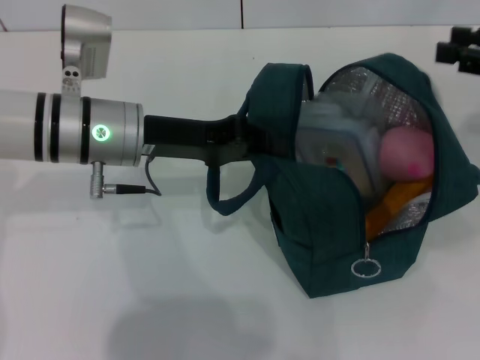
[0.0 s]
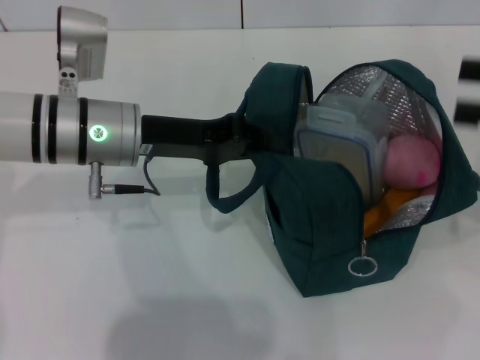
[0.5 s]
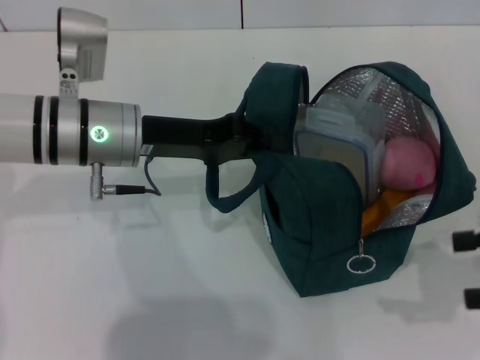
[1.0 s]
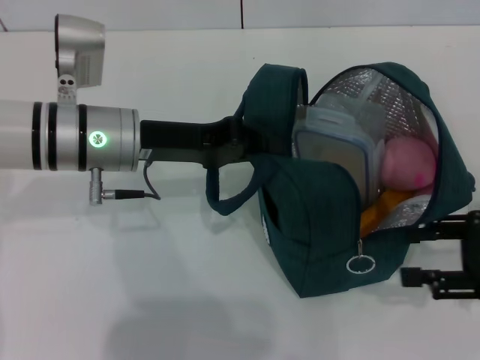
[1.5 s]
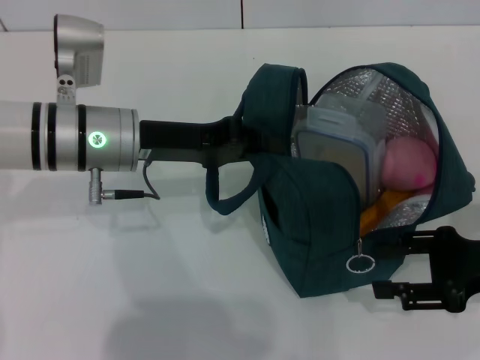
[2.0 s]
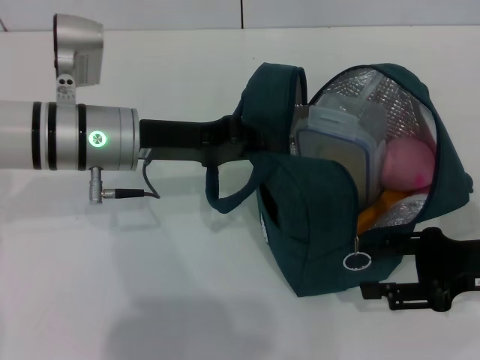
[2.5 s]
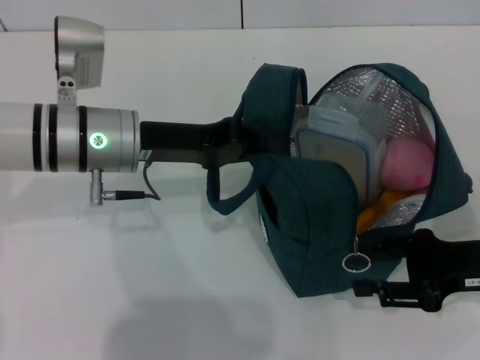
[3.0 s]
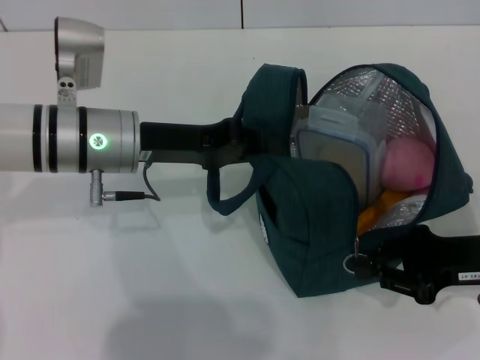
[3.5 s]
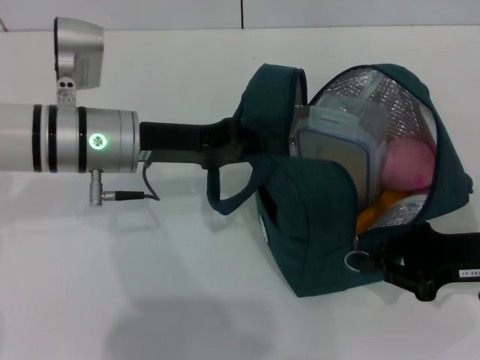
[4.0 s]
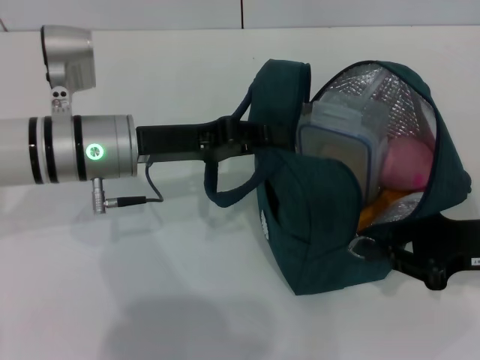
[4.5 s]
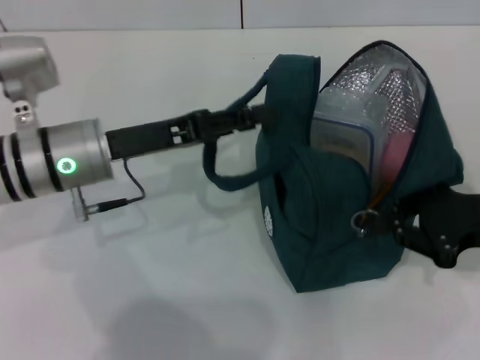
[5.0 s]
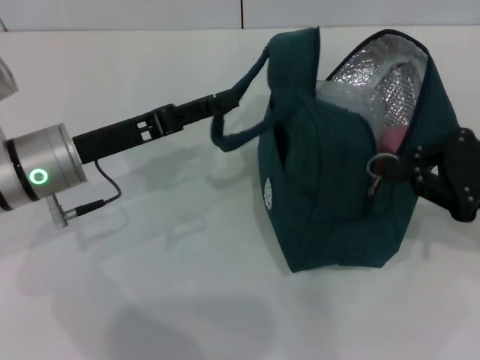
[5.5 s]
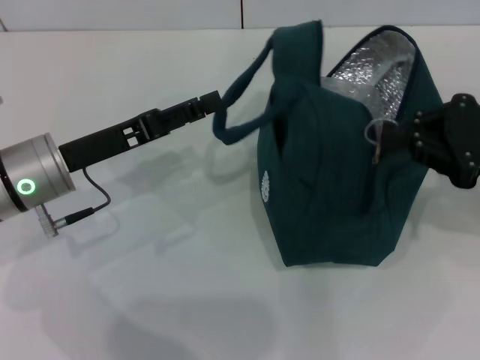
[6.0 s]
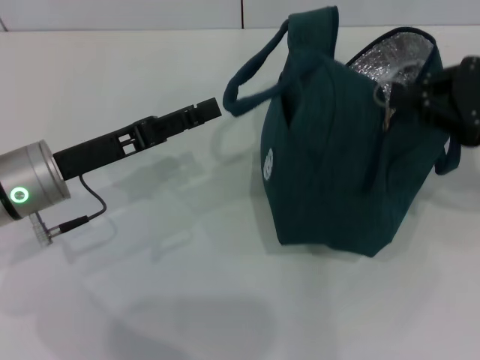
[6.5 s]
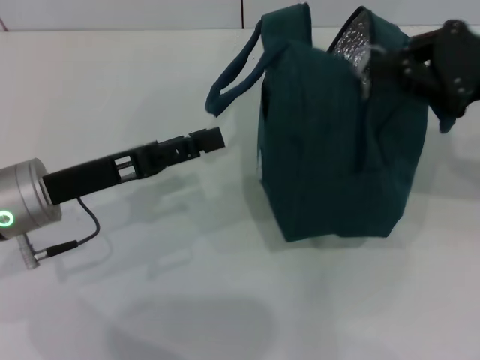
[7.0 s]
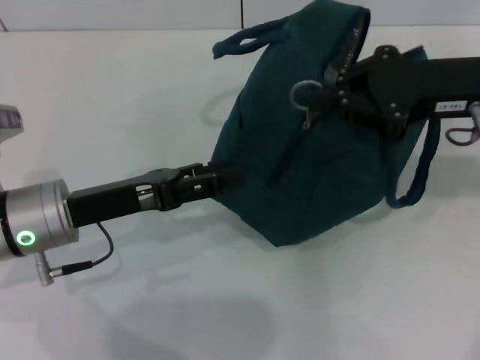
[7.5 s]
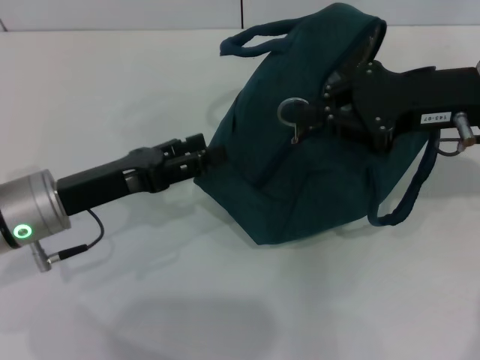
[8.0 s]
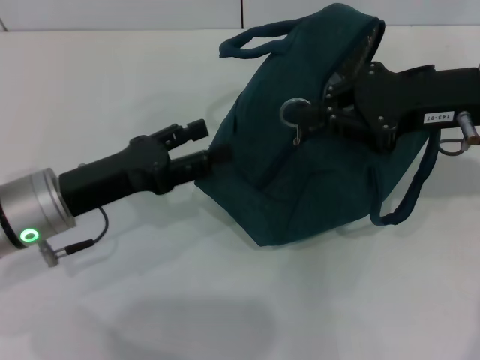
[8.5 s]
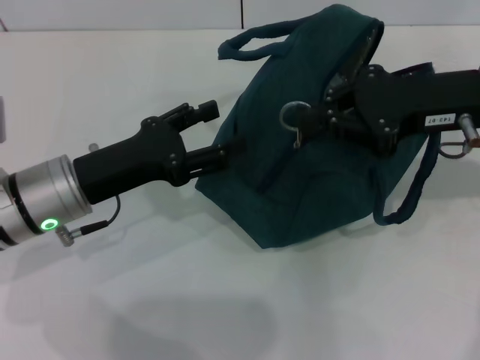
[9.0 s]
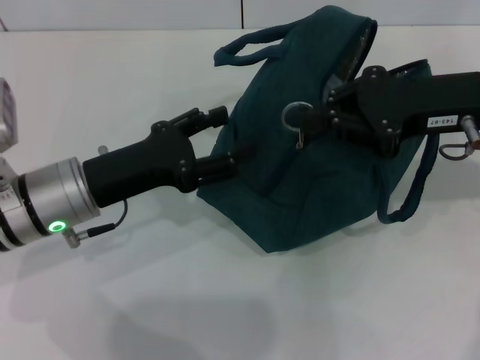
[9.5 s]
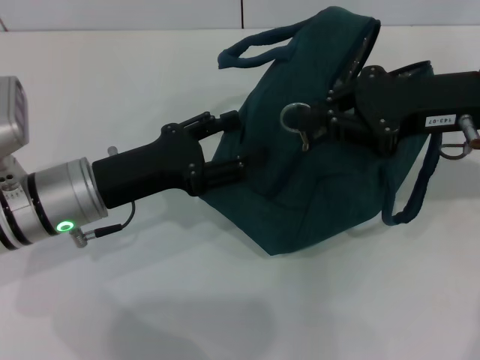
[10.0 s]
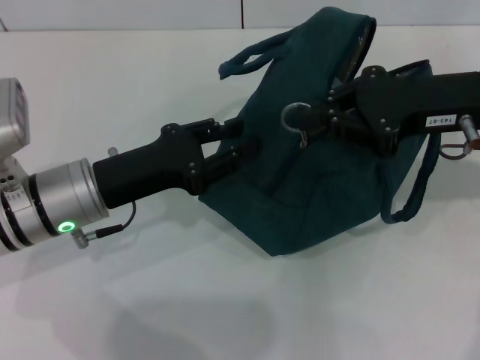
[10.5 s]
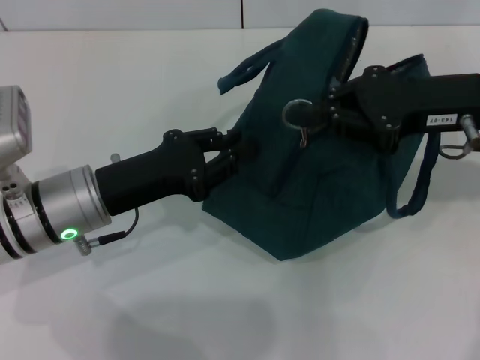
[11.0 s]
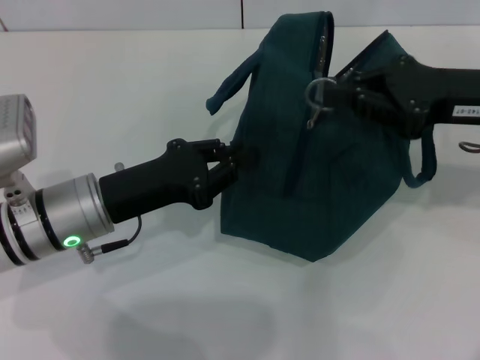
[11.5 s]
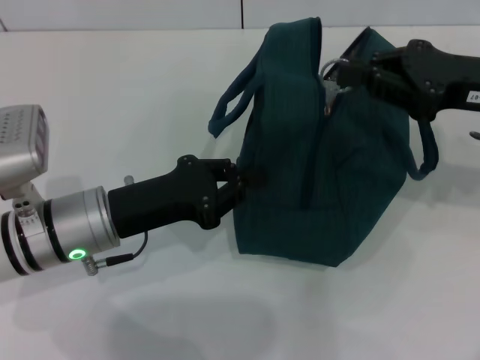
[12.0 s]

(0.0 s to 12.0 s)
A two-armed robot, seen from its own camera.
0.0 s - 2.0 s: The right gripper travels downward and backward by some 15 cm, and opens up.
2.0 s - 4.0 s: The right gripper closes its fingers.
4.0 s - 6.0 s: The right gripper heads upward, covering roughly 10 cm. Meanwhile the left gripper travels to the left by roughly 5 cm, and opens up.
6.0 s - 8.0 s: The right gripper heads to the left, covering roughly 5 cm.
10.0 s - 12.0 s: The left gripper closes.

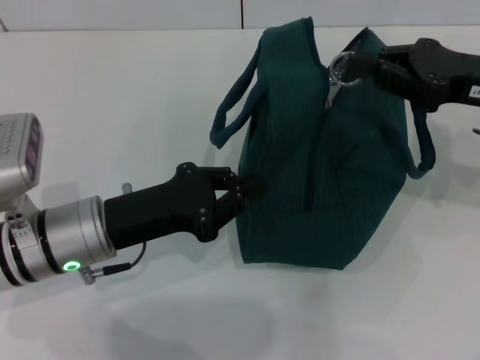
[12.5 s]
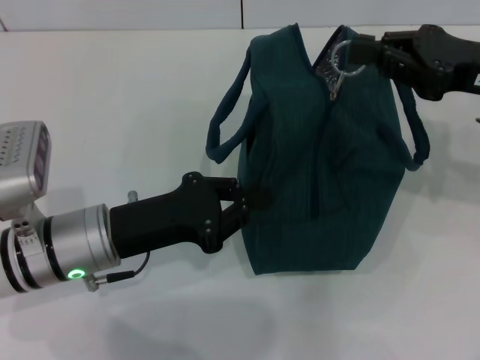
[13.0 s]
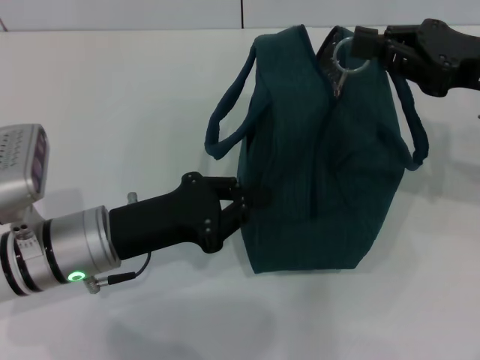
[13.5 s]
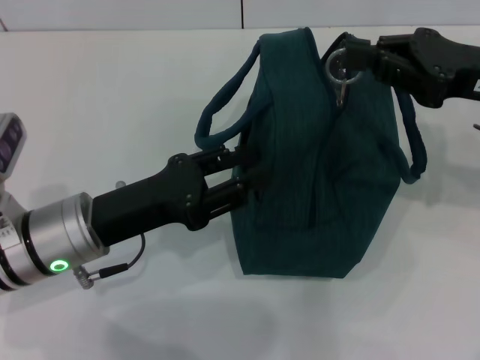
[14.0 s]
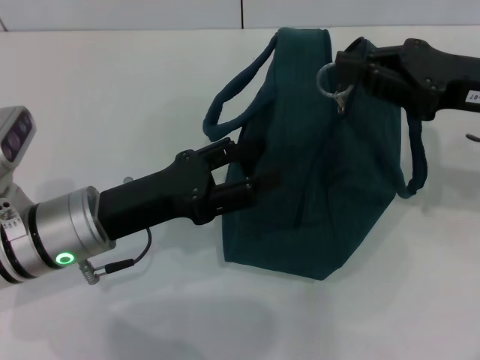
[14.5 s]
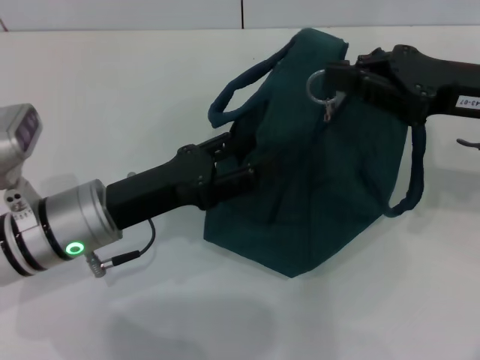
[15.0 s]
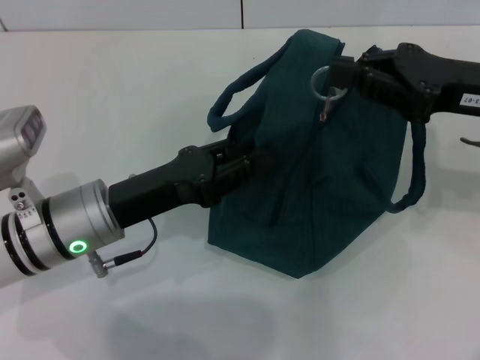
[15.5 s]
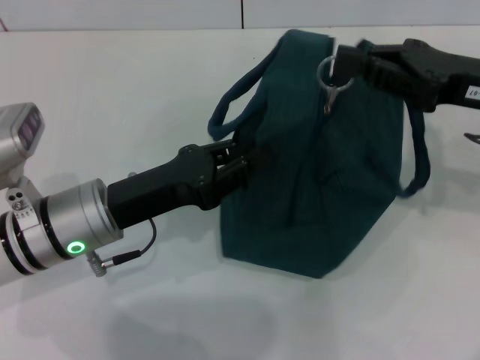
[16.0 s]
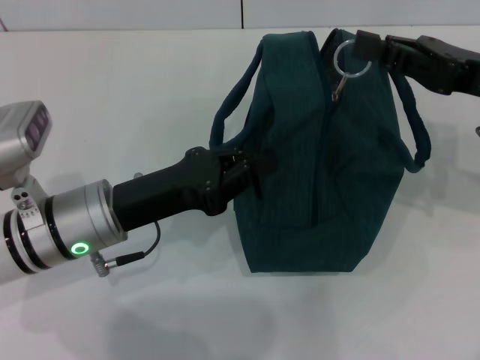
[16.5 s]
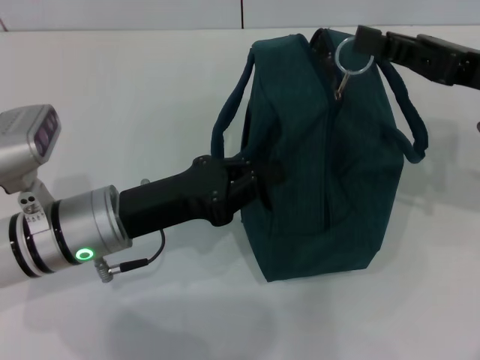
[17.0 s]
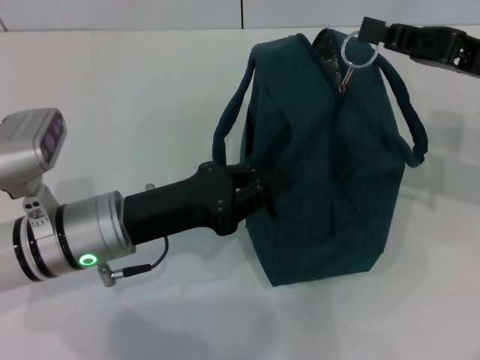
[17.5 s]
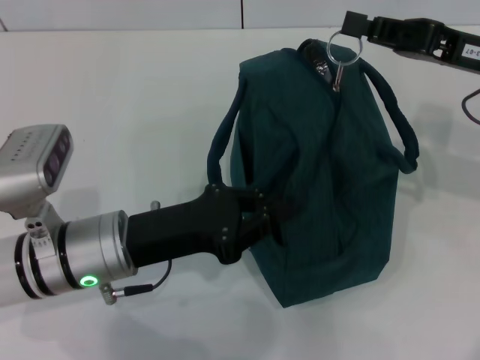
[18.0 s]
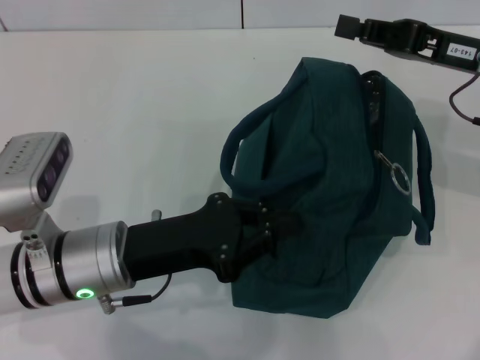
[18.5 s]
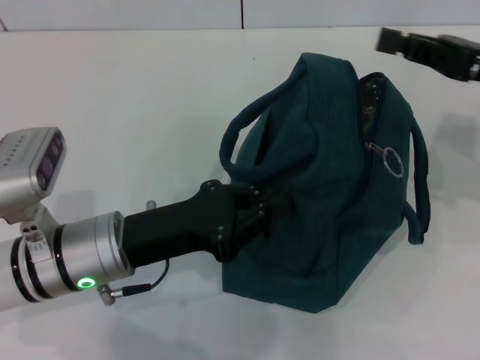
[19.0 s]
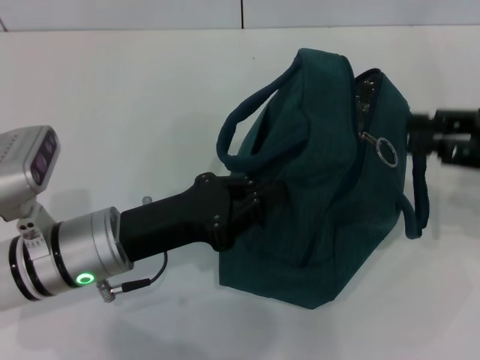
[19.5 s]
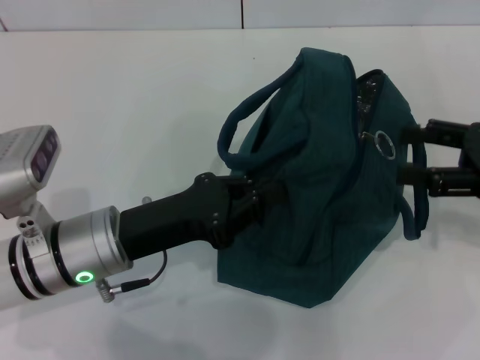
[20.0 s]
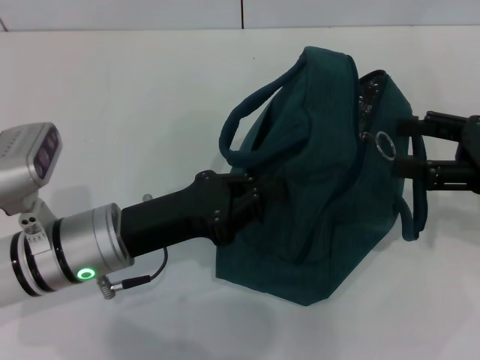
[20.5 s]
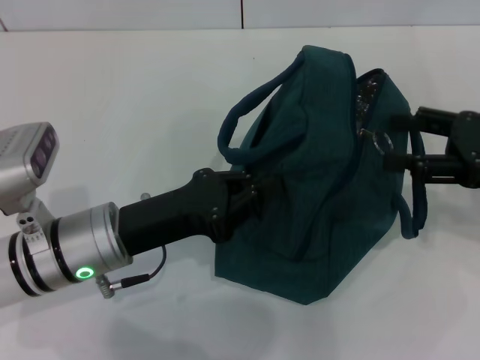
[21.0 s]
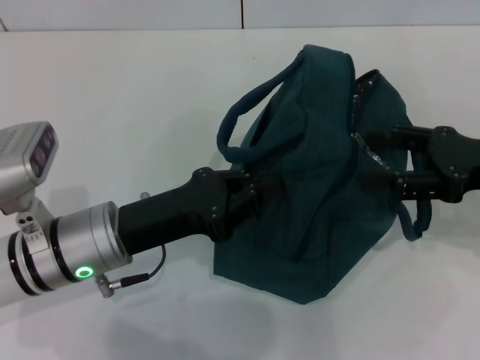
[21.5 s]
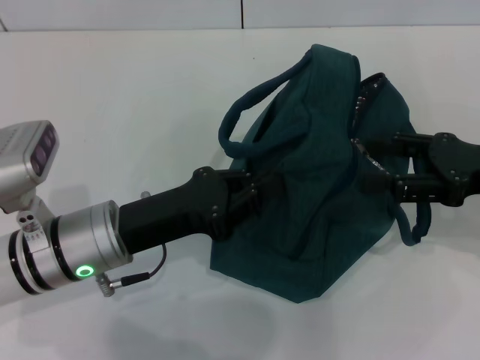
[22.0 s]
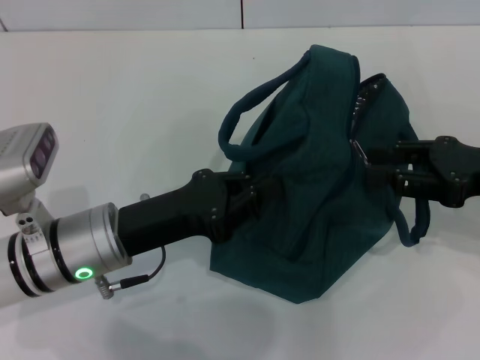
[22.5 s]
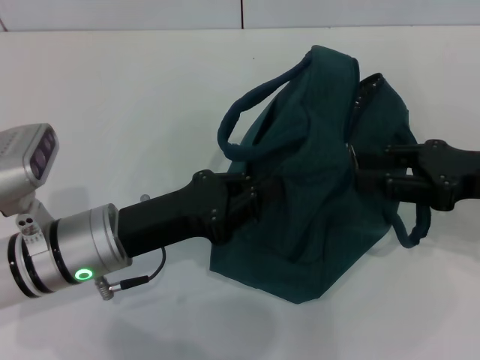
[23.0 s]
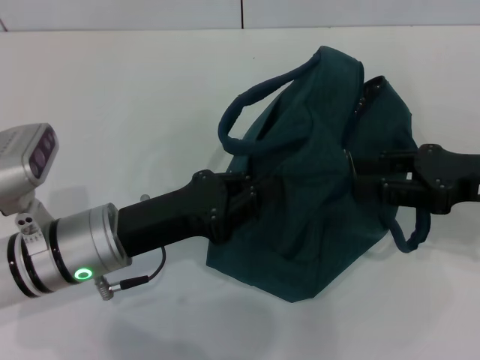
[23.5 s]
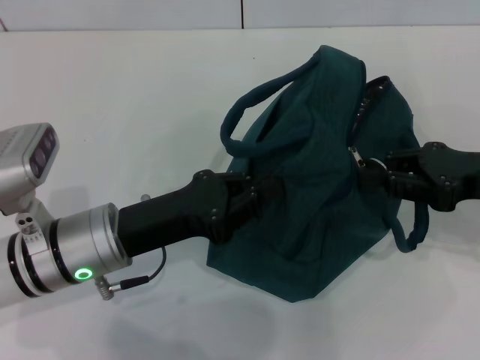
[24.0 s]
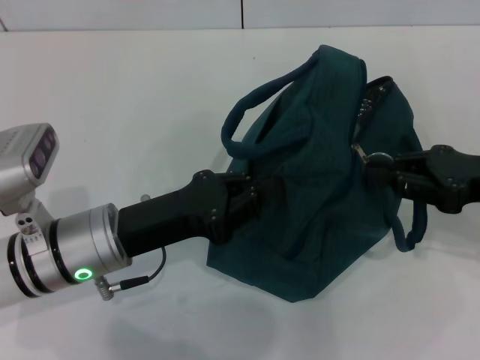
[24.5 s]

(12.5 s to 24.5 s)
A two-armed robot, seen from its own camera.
12.5 s - 14.5 s: The left gripper opens.
14.5 s - 16.5 s: The left gripper closes.
18.5 s - 20.5 s: The right gripper is displaced backward and to the right by approximately 10 cm, and opens its fingers.
20.5 s - 22.5 s: The right gripper closes up.
22.5 s - 24.5 s: The right gripper closes its fingers.

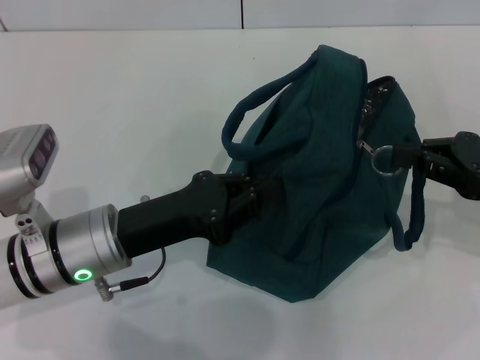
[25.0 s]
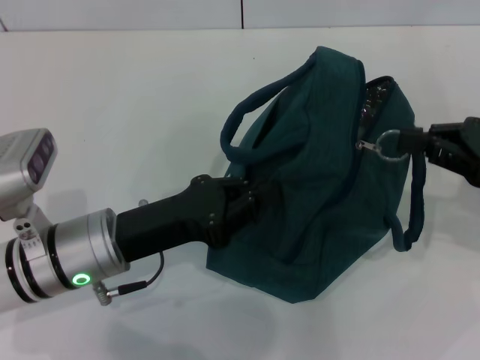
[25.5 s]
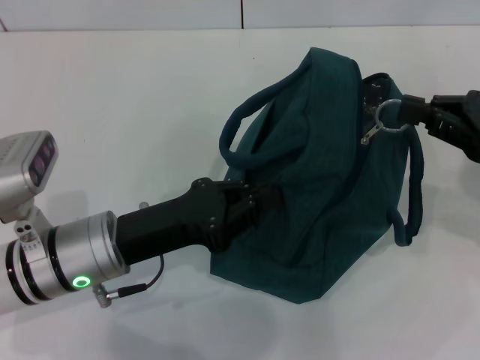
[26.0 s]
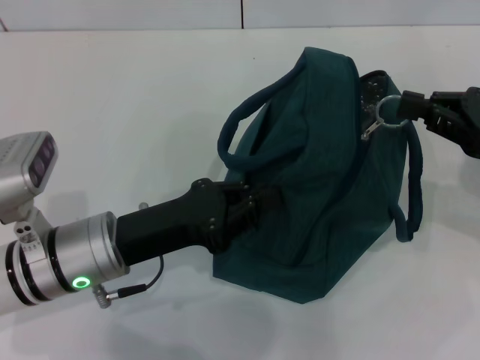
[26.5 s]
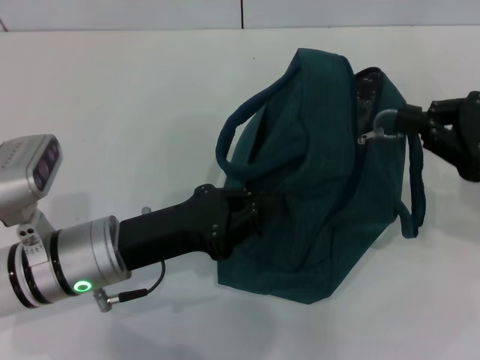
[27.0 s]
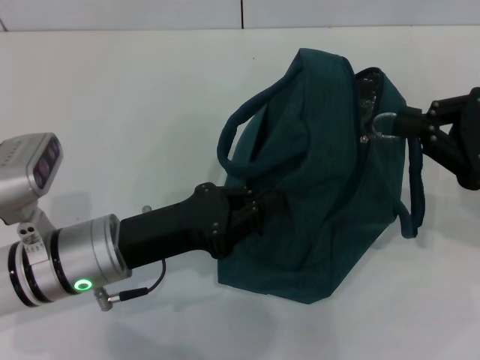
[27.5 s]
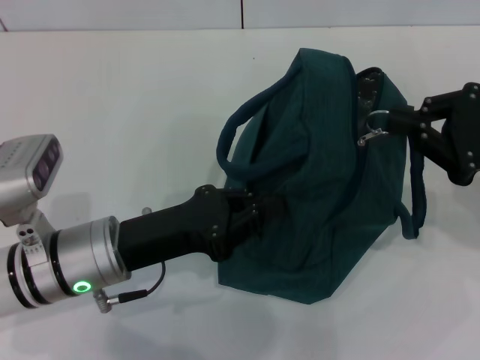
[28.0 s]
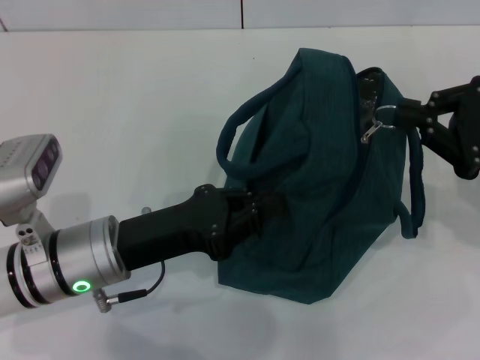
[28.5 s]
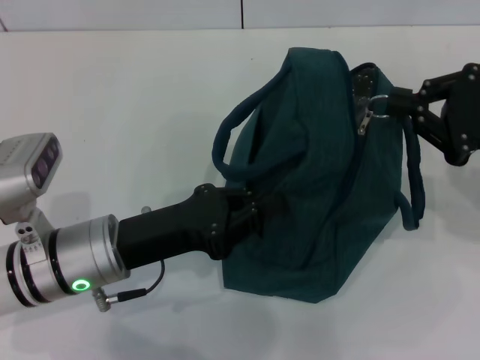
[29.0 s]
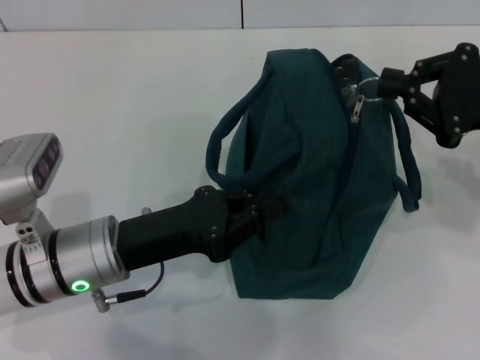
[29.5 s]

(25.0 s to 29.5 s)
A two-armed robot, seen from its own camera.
25.0 s - 27.0 s: There are only small adjustments of the grippers.
